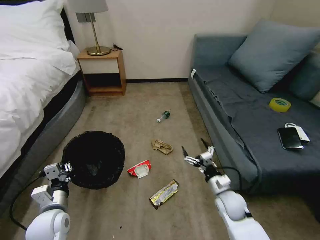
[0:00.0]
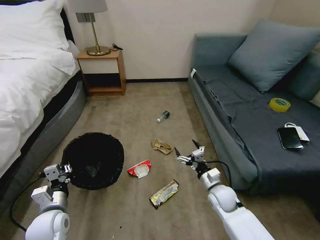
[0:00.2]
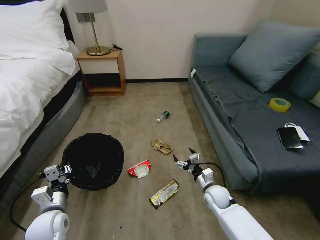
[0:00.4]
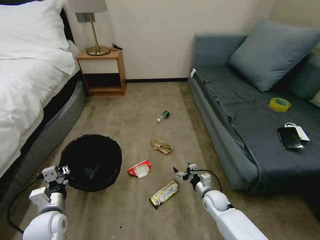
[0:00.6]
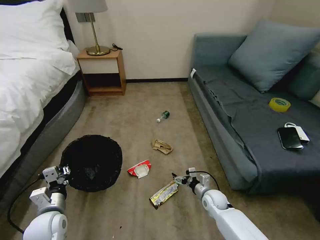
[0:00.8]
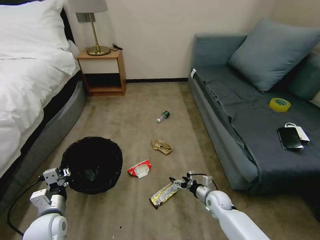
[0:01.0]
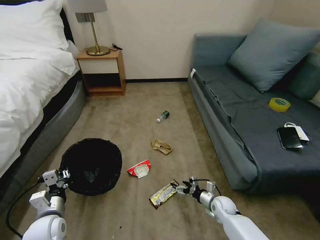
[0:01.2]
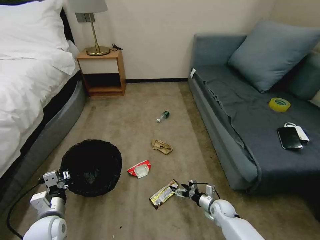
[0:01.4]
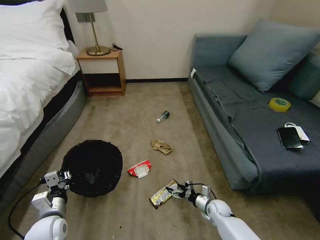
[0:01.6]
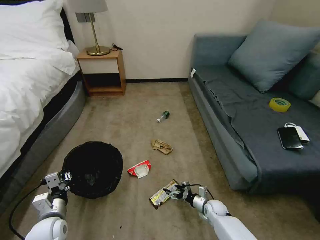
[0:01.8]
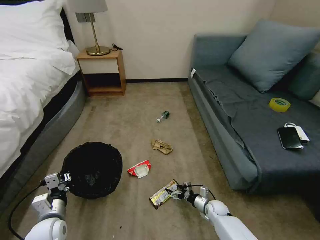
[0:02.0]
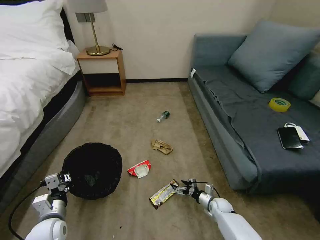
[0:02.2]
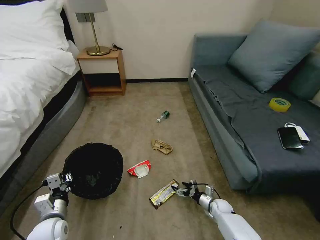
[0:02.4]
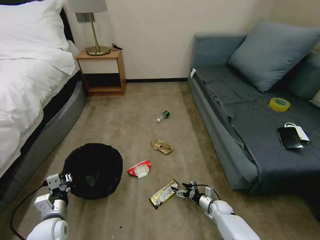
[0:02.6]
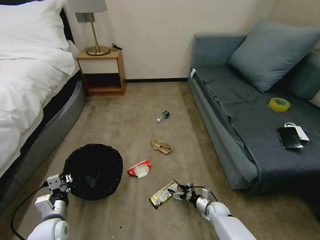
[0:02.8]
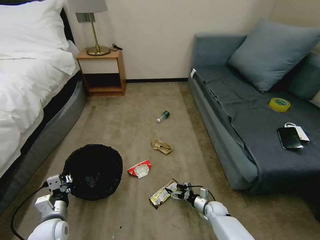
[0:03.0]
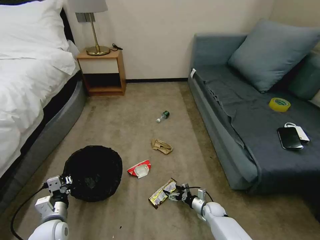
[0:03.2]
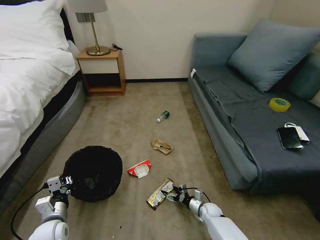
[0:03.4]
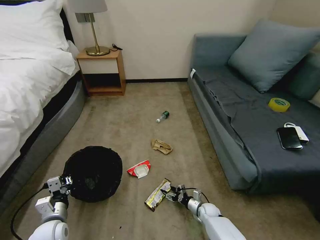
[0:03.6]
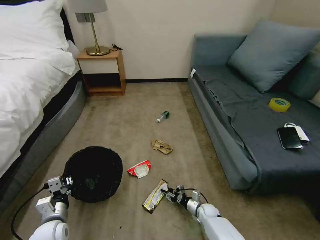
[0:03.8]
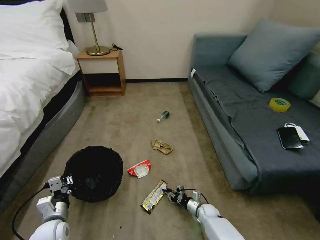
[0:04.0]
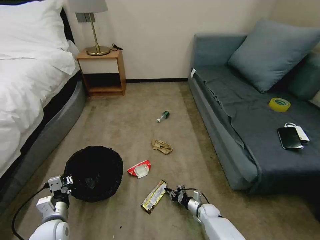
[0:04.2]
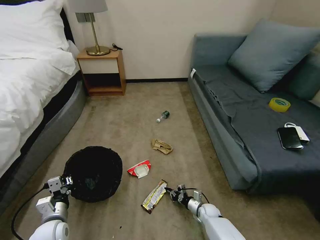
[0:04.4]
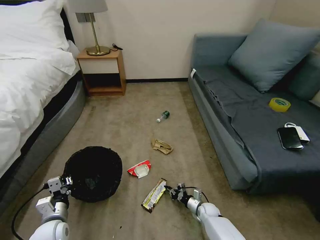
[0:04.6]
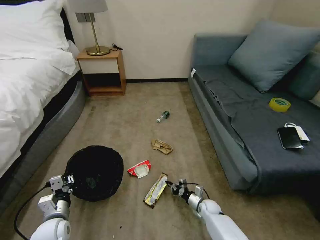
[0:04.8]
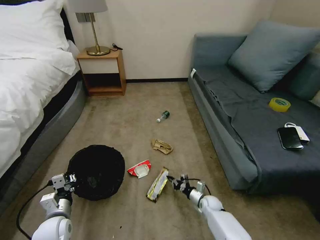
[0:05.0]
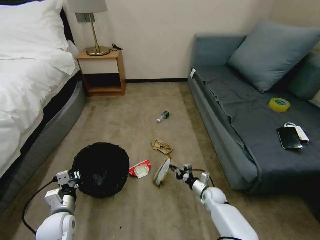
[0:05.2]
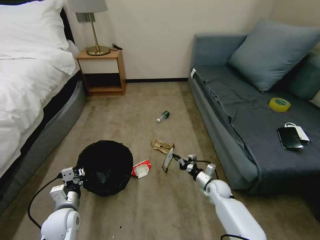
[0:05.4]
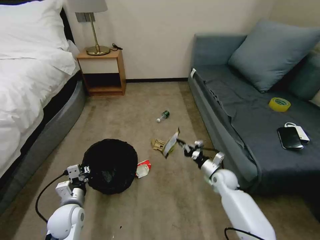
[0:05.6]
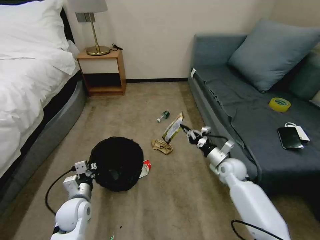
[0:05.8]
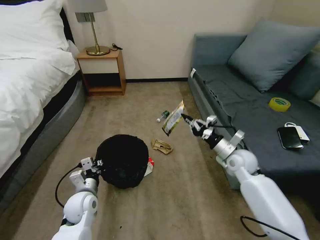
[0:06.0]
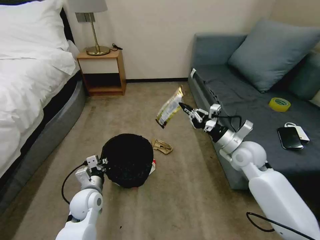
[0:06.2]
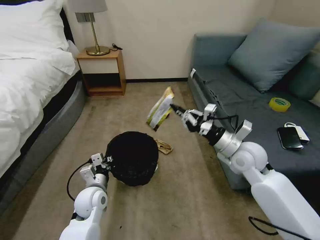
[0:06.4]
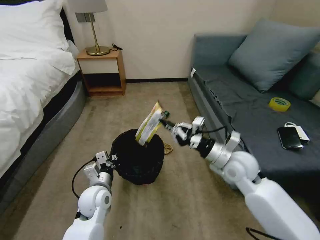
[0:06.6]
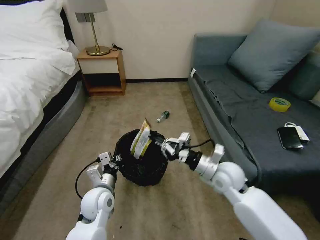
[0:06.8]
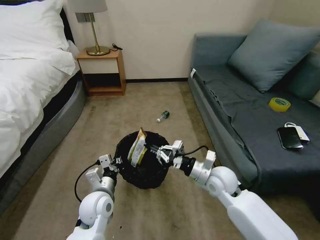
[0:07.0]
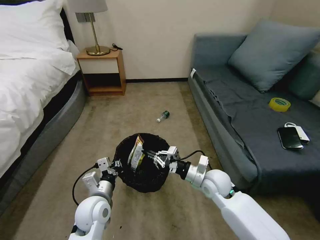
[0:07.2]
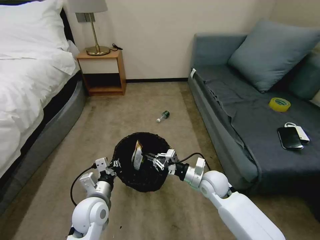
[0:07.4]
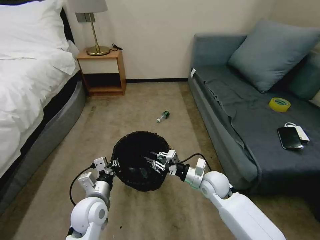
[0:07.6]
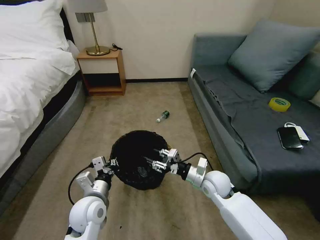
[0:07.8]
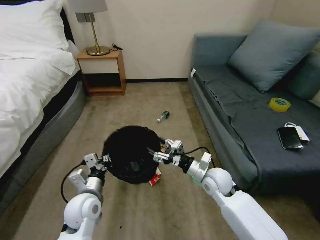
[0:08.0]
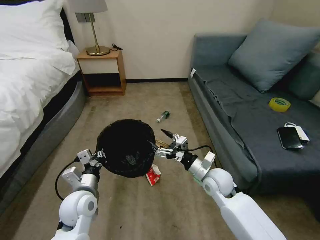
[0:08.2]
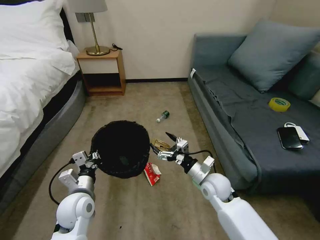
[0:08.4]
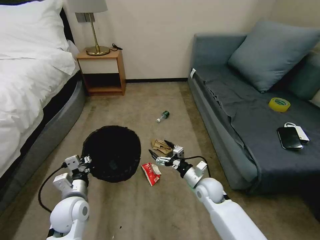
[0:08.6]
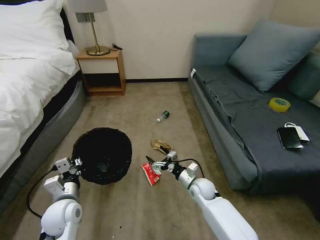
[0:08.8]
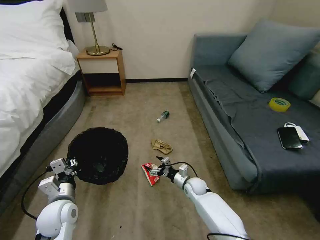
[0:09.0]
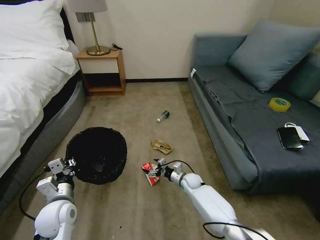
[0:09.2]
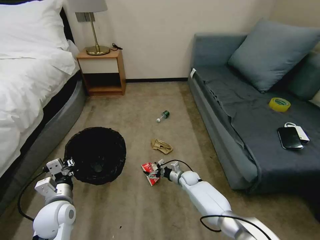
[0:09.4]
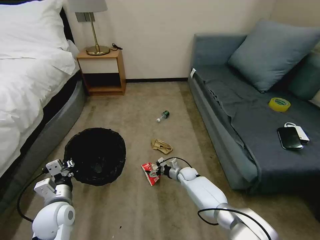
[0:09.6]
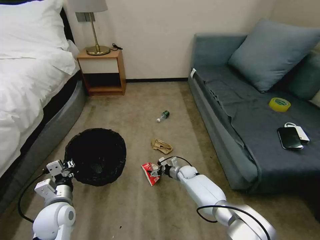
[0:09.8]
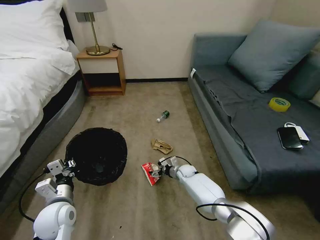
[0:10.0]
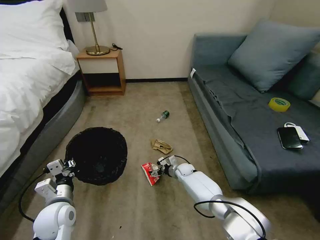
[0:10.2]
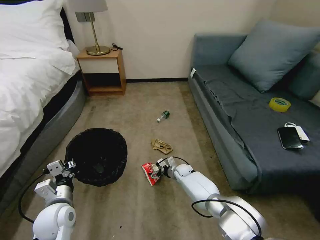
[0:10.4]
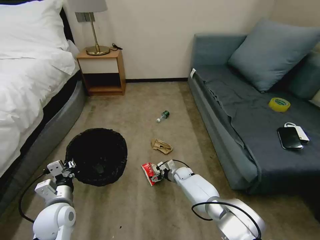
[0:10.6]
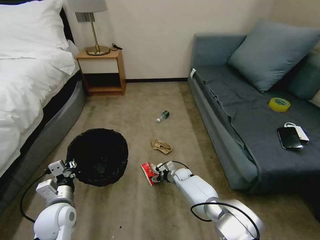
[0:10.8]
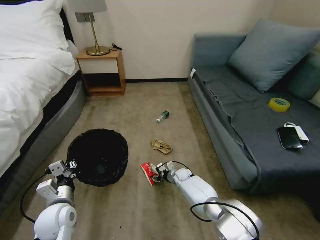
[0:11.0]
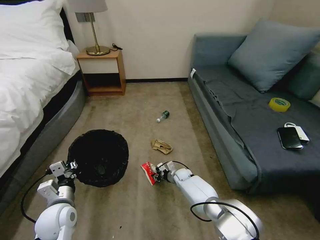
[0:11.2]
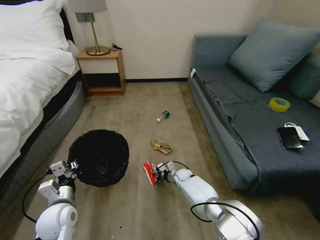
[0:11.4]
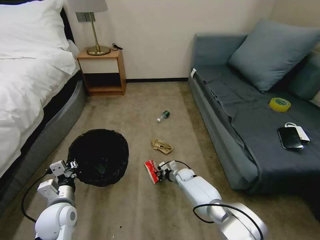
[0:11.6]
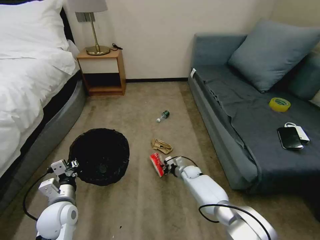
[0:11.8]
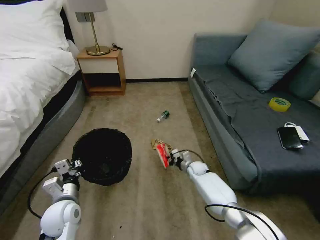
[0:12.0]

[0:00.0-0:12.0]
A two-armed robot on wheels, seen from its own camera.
Task of the whole recording: Pick up the trash bin, then pick up the garbage on the floor and place it into the trash bin.
0:00.0 to 0:01.6: The right gripper heads downward, covering approximately 15 cm.
0:01.6 to 0:03.0: The grippers move only a little.
0:03.0 to 0:04.4: The right gripper closes up.
0:04.4 to 0:06.0: The left gripper is displaced forward and to the right by some 10 cm. The right gripper is displaced upward by approximately 35 cm.
0:06.0 to 0:07.6: The left gripper shifts some 5 cm to the right, while the right gripper shifts roughly 15 cm to the left, downward and backward.
0:07.6 to 0:09.0: The left gripper travels to the left by approximately 10 cm; the right gripper travels downward by about 15 cm, and opens.
0:09.0 to 0:10.4: The right gripper moves forward, some 10 cm.
0:10.4 to 0:12.0: The right gripper is displaced to the right by about 5 cm, and closes.

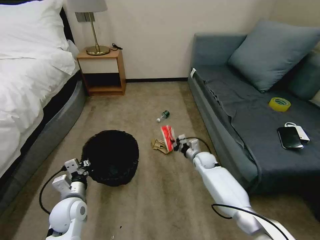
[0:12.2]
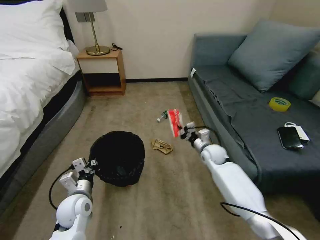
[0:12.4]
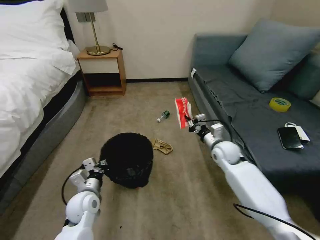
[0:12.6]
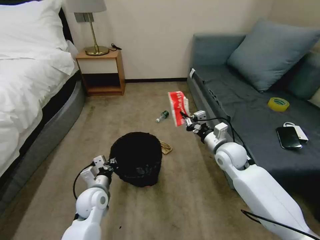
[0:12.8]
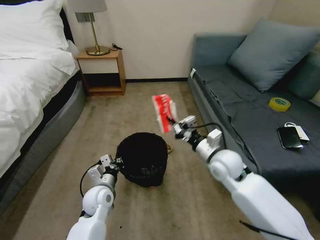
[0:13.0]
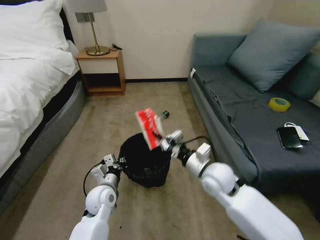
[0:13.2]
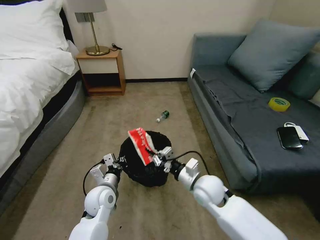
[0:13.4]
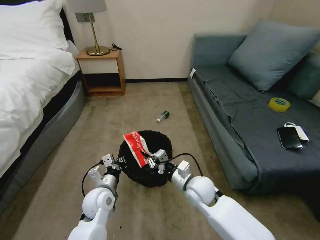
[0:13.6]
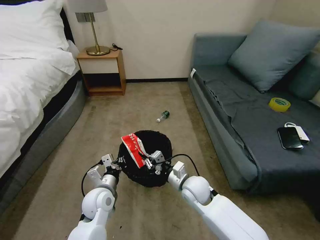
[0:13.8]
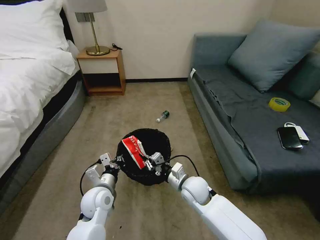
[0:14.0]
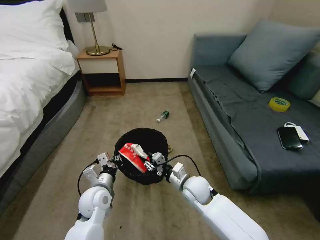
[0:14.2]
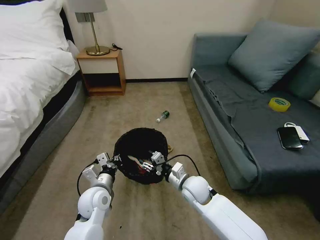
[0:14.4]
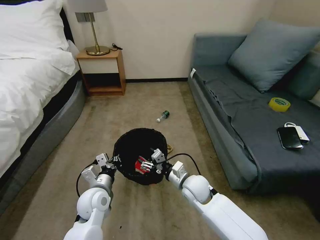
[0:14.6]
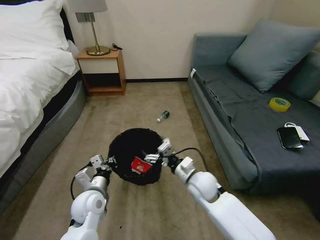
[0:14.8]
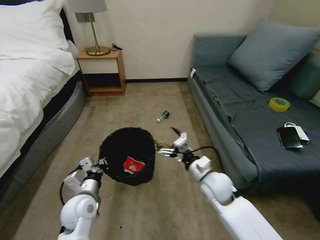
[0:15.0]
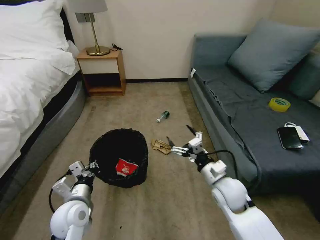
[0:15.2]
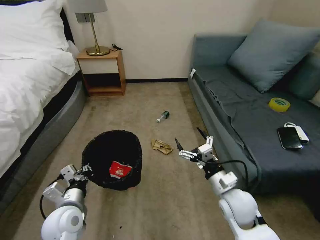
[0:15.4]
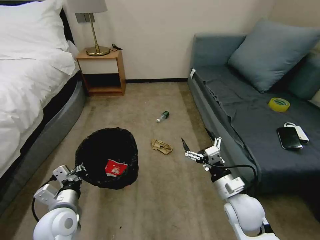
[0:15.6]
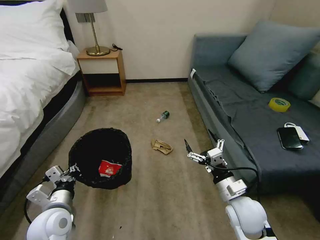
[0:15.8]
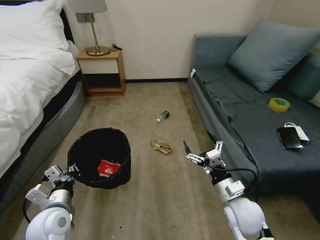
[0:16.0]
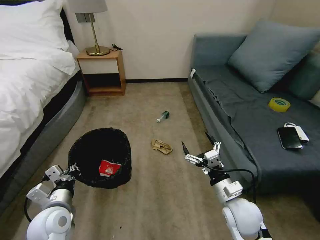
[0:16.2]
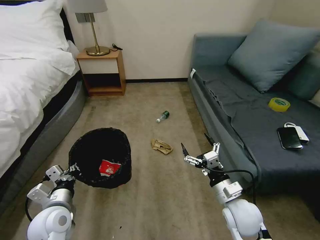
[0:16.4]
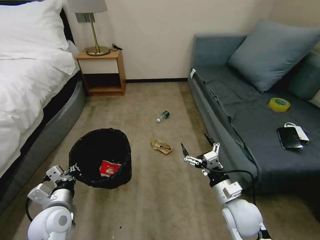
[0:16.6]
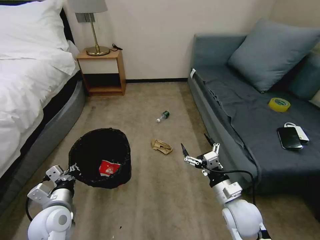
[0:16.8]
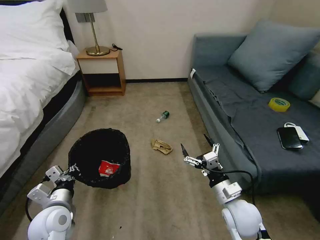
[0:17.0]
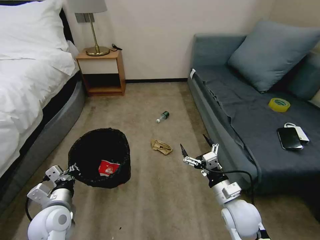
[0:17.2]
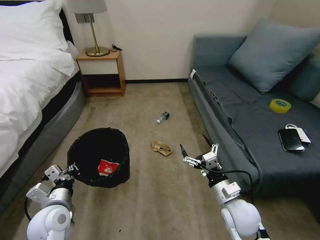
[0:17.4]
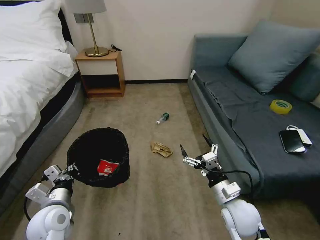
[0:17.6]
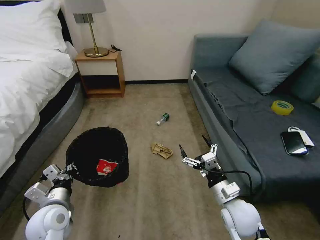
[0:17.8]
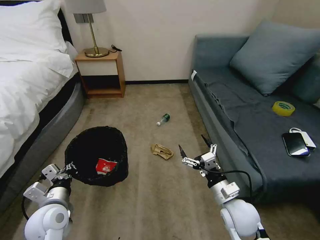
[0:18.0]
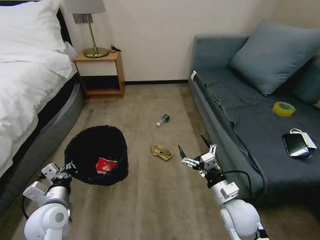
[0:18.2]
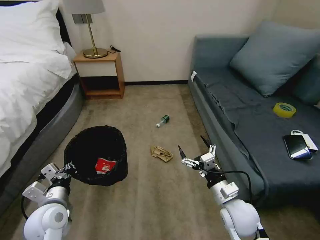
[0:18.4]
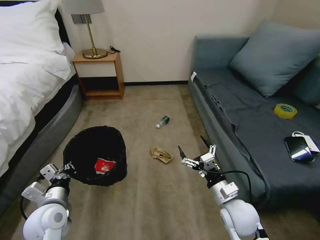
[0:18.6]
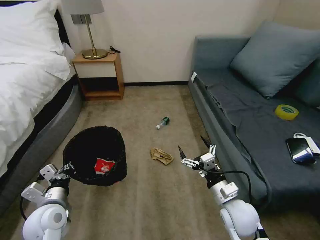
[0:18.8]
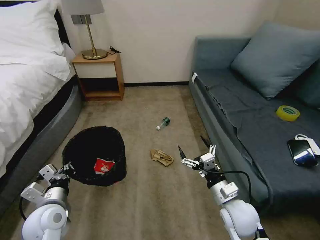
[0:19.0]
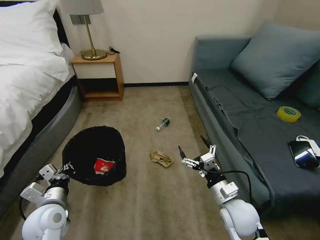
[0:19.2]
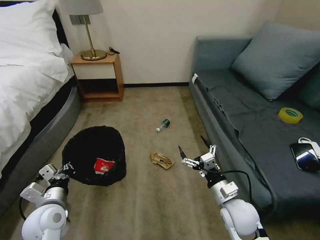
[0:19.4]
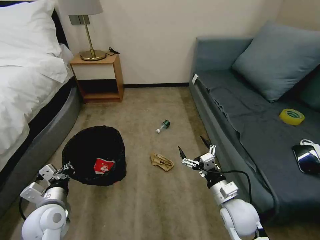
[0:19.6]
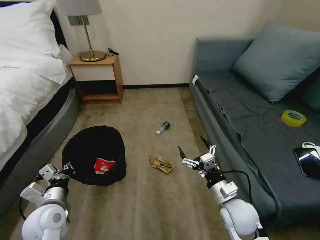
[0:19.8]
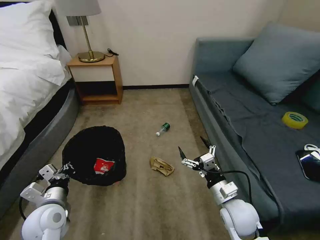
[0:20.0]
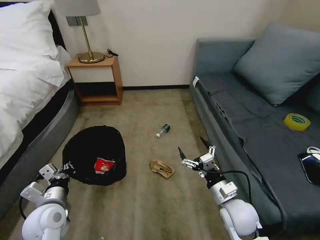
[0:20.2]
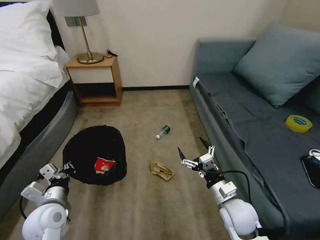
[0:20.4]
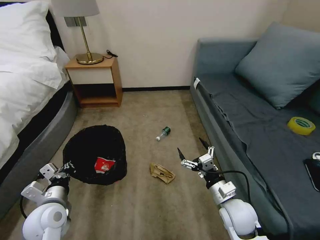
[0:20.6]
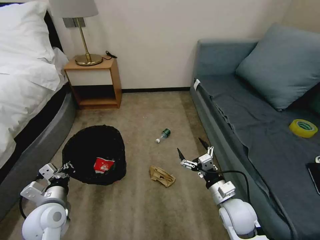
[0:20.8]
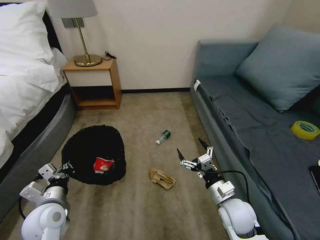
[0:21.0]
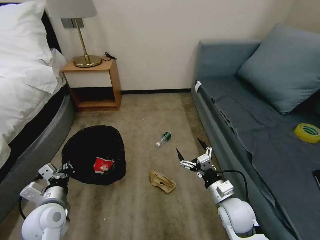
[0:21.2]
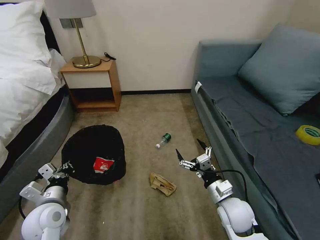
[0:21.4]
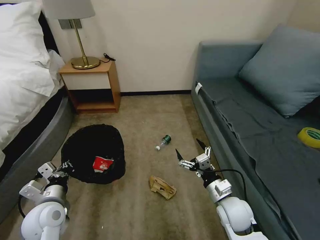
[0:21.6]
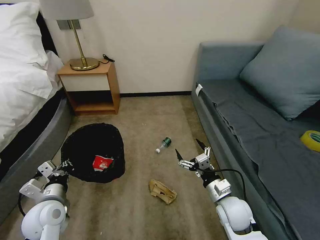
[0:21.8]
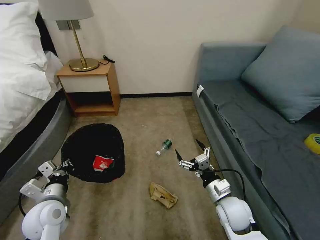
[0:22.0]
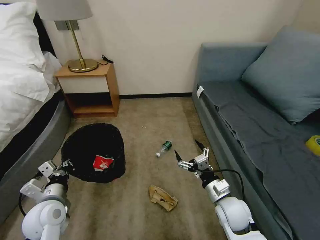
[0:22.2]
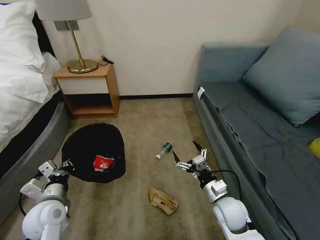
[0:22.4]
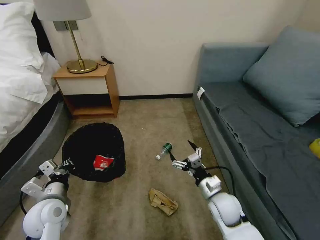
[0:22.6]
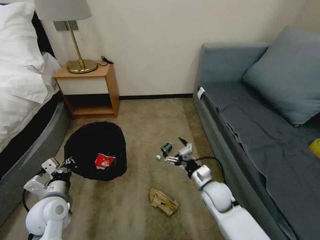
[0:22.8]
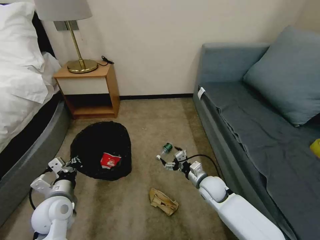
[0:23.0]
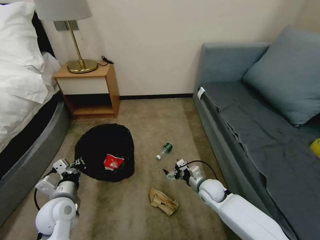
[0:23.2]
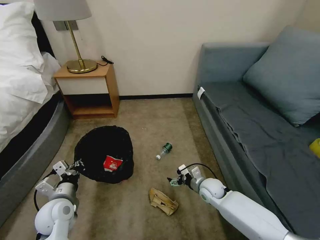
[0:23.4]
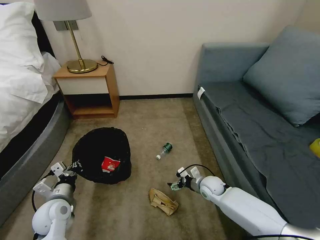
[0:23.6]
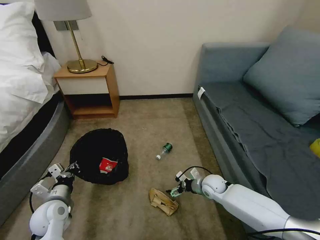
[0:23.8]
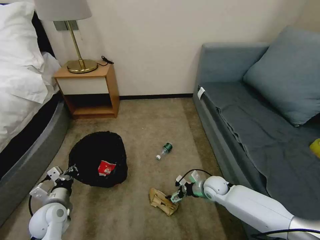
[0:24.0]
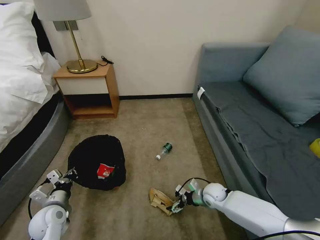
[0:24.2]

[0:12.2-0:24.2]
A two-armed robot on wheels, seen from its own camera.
Task of the whole recording: Pick up the trash bin, then pick up the garbage on the floor and place it into the trash bin.
0:12.2 to 0:13.8: The right gripper goes roughly 20 cm backward, to the left and upward, while the left gripper shifts approximately 10 cm to the right.
0:13.8 to 0:15.2: The left gripper moves to the left and backward, approximately 10 cm, while the right gripper heads to the right, covering roughly 10 cm, and opens up.
0:15.2 to 0:16.6: The right gripper goes approximately 5 cm backward.
0:16.6 to 0:18.2: Both grippers stay put.
0:18.2 to 0:19.8: The two grippers keep their place.
0:19.8 to 0:21.2: The two grippers keep their place.
0:22.6 to 0:24.2: The left gripper shifts some 10 cm downward; the right gripper moves downward and forward, some 15 cm.
